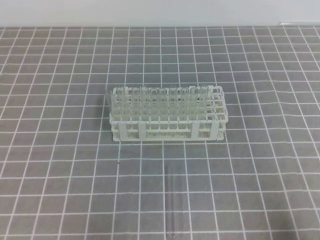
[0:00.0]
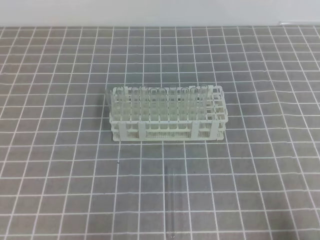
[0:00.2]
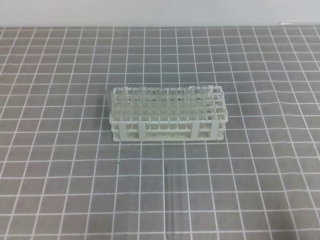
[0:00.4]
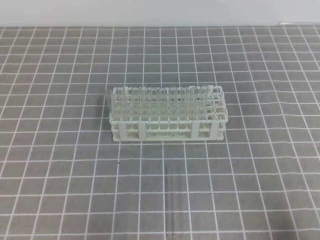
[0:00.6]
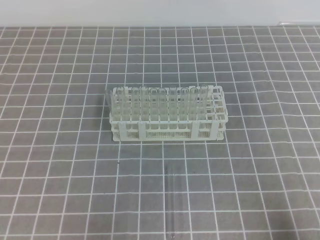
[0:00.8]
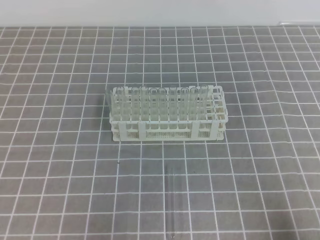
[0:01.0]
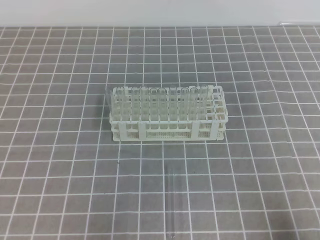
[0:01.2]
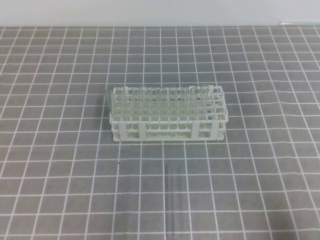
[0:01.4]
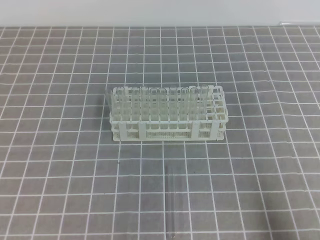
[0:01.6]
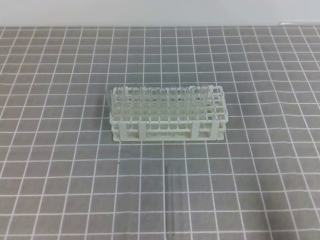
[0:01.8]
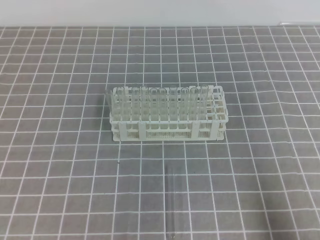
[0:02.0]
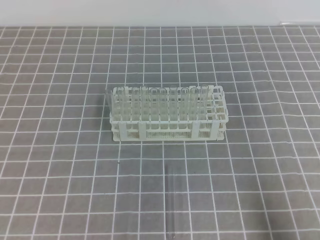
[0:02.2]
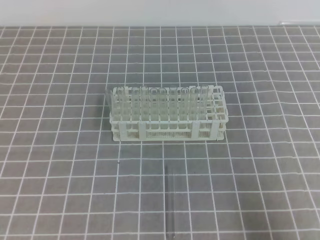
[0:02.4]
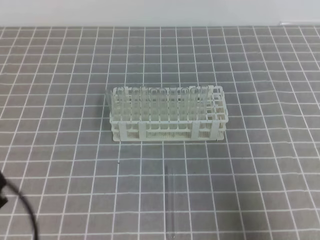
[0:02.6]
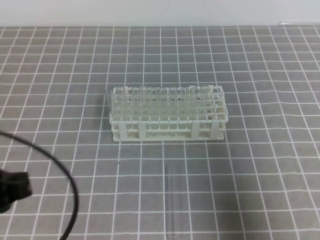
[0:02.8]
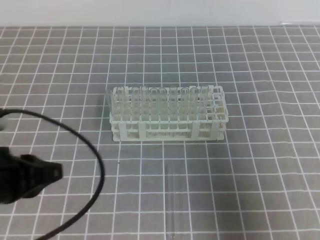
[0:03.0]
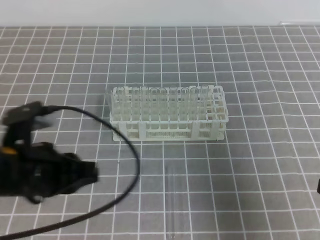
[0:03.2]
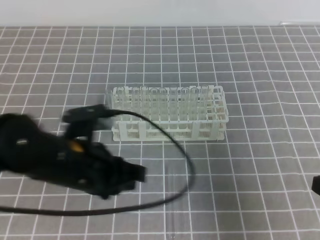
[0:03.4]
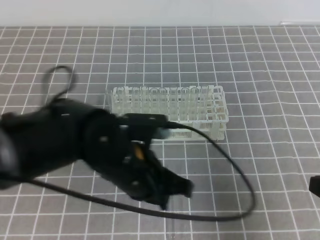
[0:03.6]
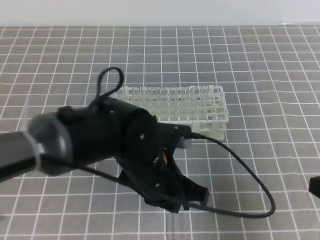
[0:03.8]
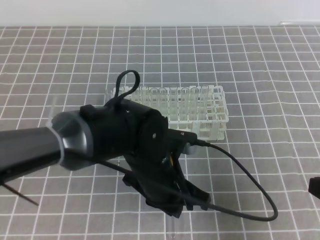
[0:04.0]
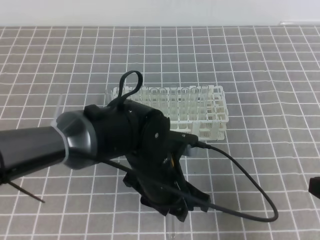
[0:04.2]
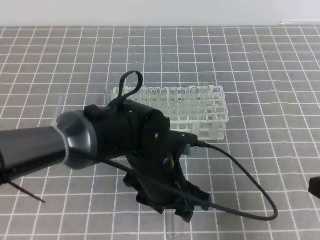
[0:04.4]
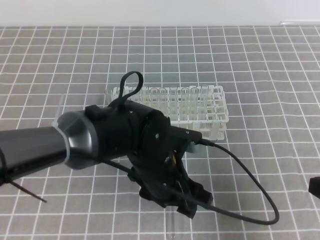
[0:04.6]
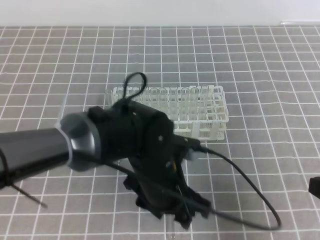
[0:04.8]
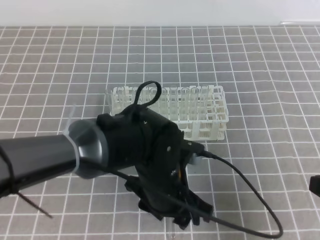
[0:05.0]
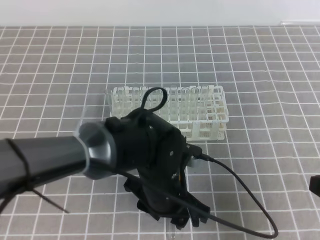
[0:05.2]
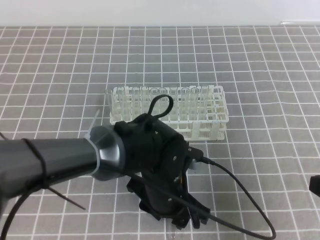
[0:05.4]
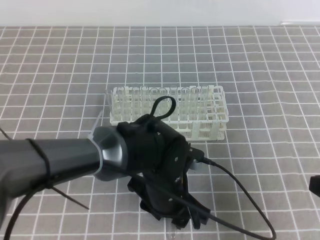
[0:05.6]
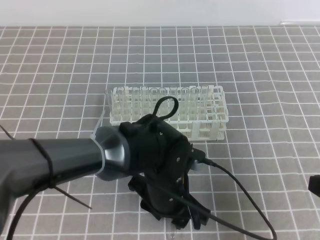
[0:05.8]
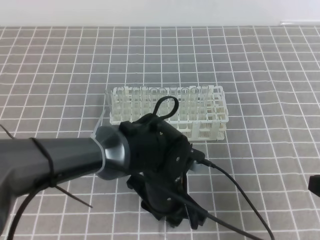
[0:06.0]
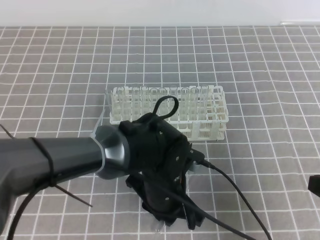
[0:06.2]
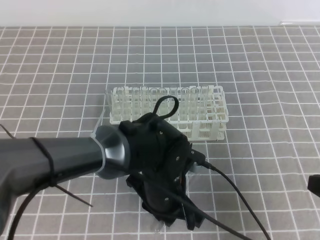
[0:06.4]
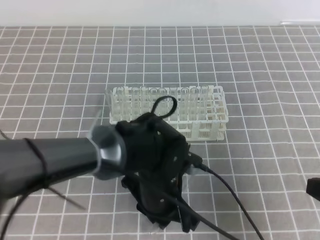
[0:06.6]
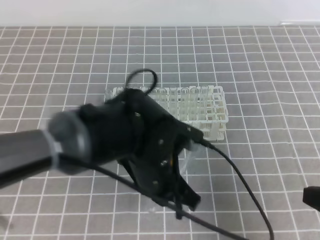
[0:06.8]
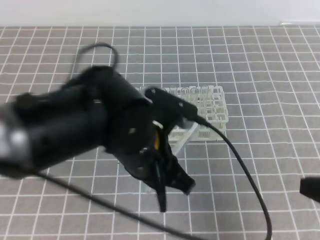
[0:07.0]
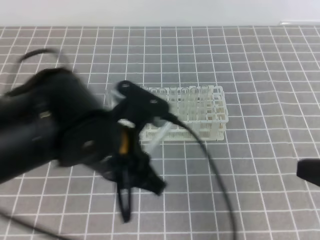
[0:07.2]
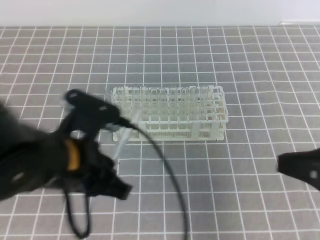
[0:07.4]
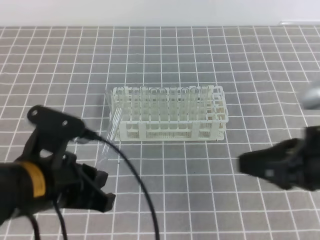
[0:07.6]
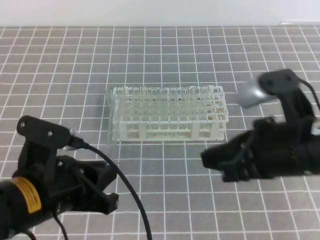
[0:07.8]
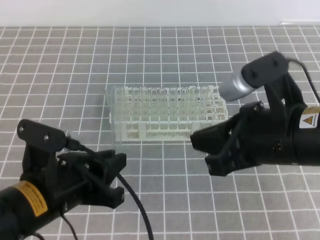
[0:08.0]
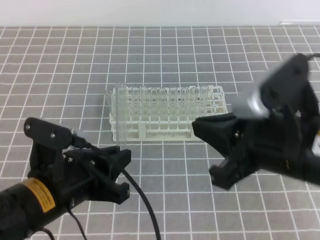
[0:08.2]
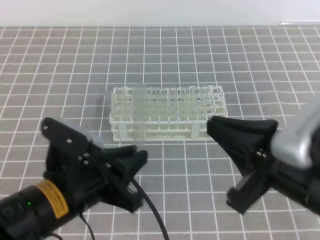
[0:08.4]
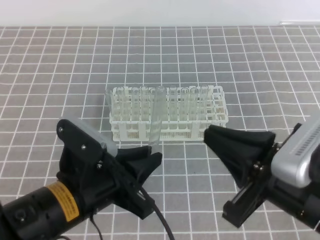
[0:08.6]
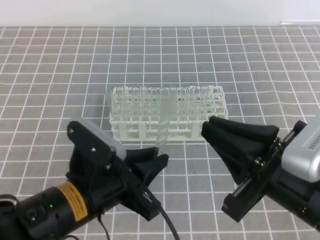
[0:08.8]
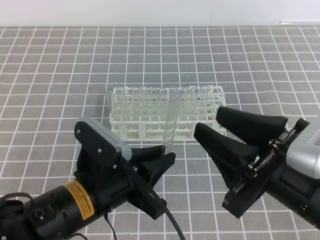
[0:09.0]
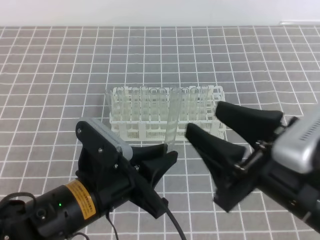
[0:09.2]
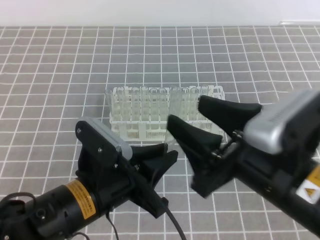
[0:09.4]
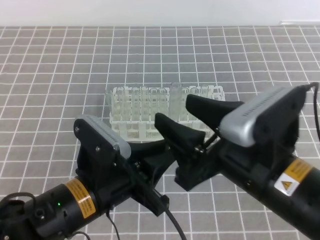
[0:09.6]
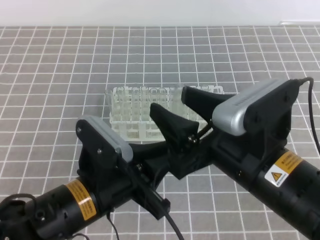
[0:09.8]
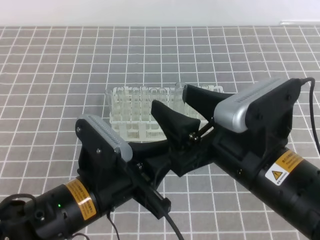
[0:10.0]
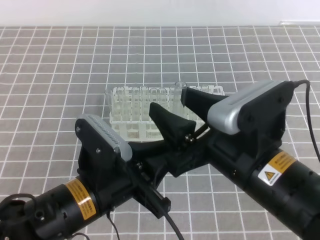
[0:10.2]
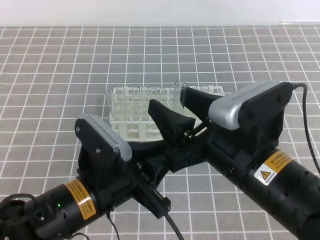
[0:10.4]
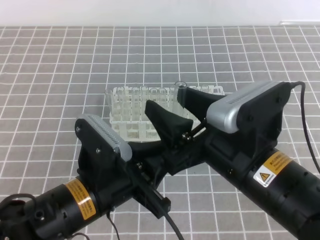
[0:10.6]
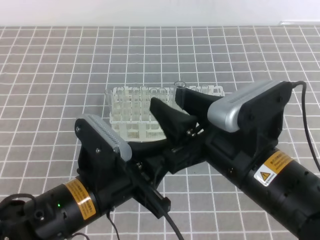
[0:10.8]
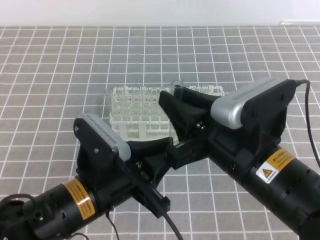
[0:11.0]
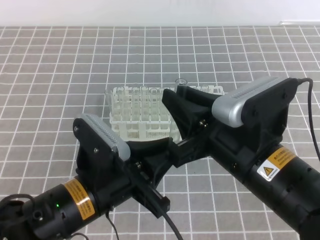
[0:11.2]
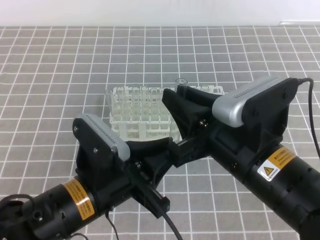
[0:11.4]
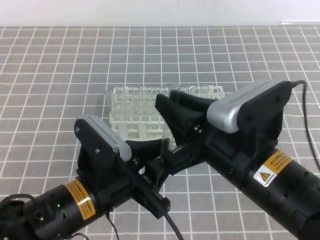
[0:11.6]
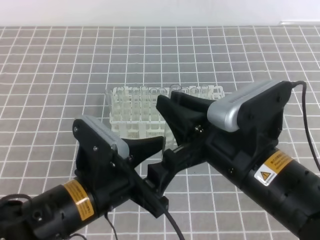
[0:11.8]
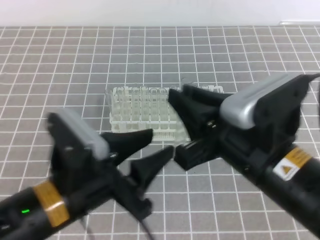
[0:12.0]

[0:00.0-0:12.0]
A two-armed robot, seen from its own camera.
0:01.6 to 0:03.0: The left gripper shifts about 15 cm forward, upward and to the right; the right gripper goes approximately 10 cm upward and forward.
0:03.0 to 0:04.4: The left gripper shifts approximately 20 cm to the right, and opens its fingers.
0:04.4 to 0:06.0: The left gripper closes up.
0:06.0 to 0:07.6: The right gripper heads to the left and upward, covering about 10 cm; the left gripper moves to the left and upward, about 20 cm, and closes its fingers.
0:07.6 to 0:09.0: The right gripper travels to the left by about 5 cm, and opens its fingers. The left gripper ends up roughly 5 cm from where it was.
0:09.0 to 0:10.4: The right gripper moves to the left, roughly 5 cm, and opens its fingers.
0:10.4 to 0:12.0: The right gripper closes up, while the left gripper opens its fingers.

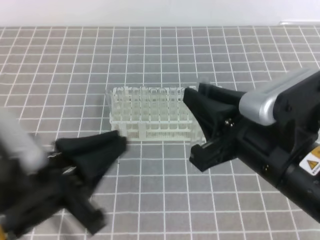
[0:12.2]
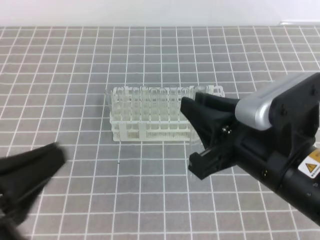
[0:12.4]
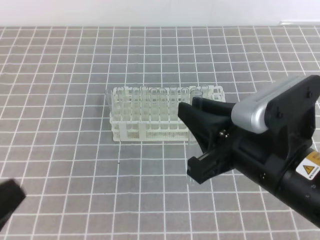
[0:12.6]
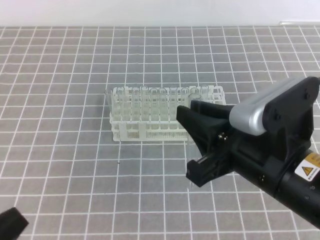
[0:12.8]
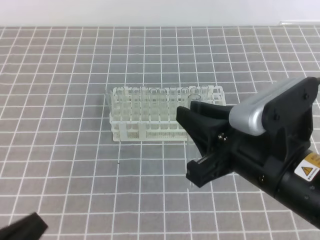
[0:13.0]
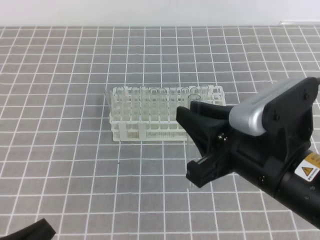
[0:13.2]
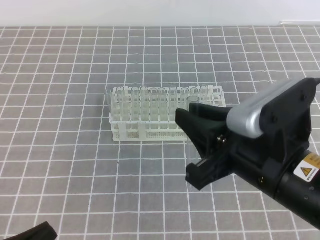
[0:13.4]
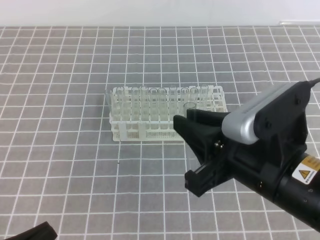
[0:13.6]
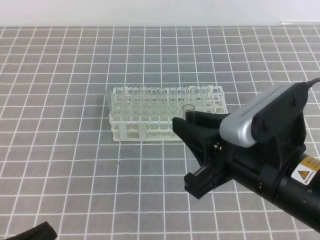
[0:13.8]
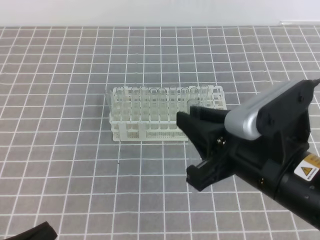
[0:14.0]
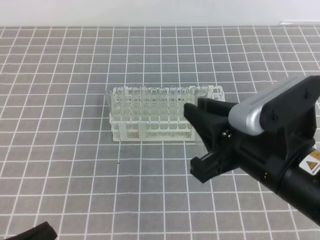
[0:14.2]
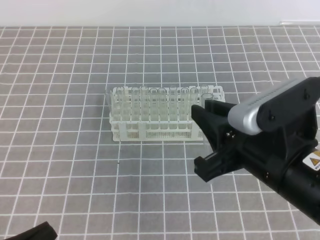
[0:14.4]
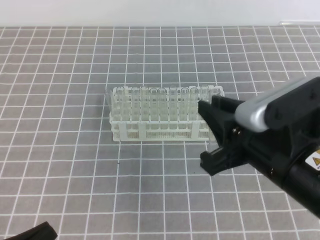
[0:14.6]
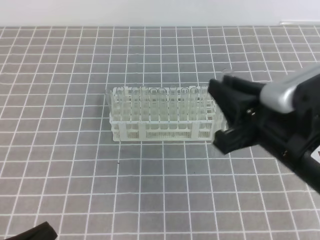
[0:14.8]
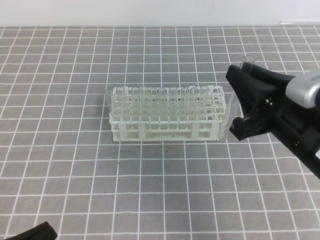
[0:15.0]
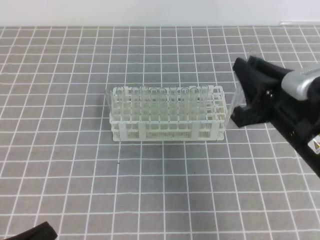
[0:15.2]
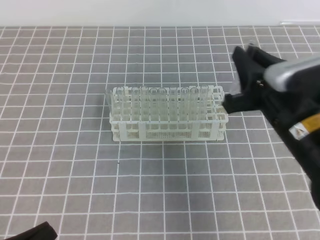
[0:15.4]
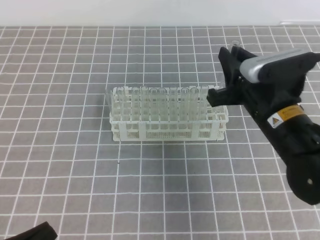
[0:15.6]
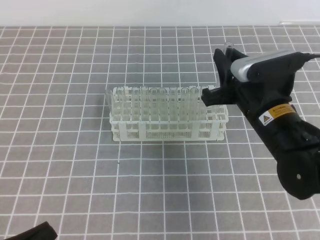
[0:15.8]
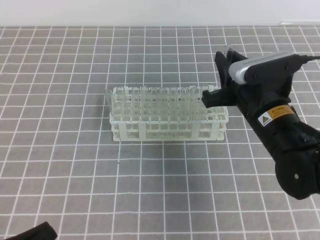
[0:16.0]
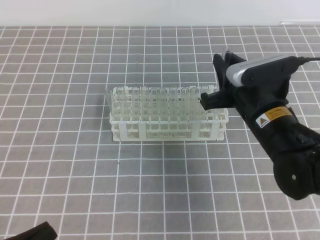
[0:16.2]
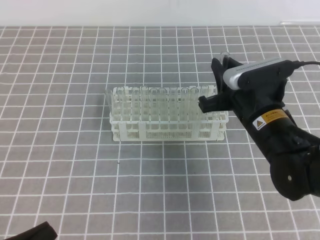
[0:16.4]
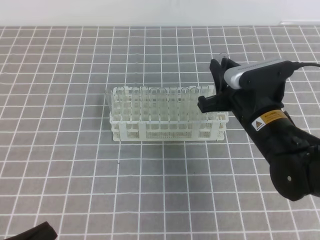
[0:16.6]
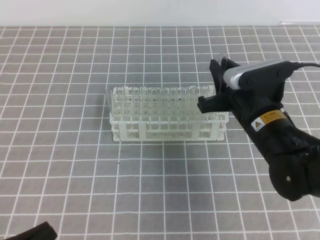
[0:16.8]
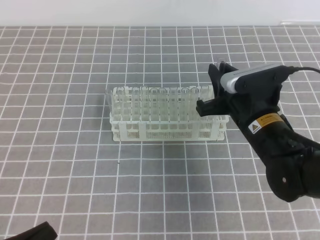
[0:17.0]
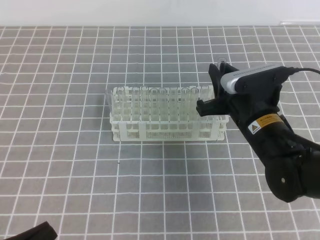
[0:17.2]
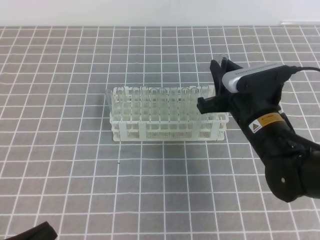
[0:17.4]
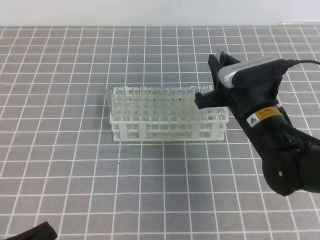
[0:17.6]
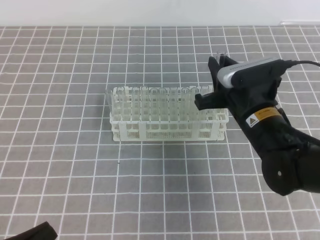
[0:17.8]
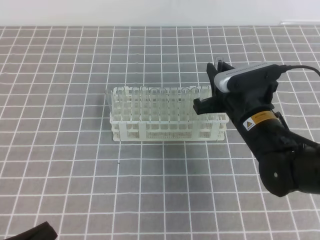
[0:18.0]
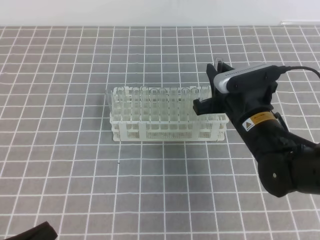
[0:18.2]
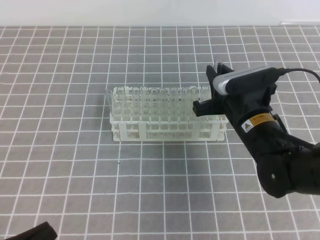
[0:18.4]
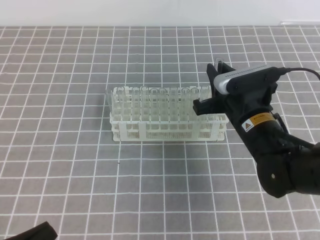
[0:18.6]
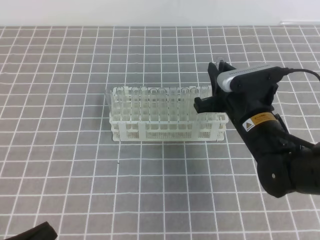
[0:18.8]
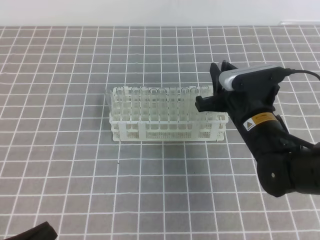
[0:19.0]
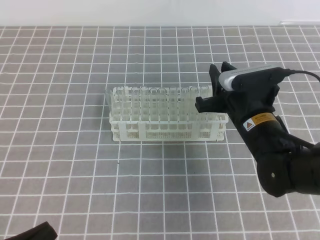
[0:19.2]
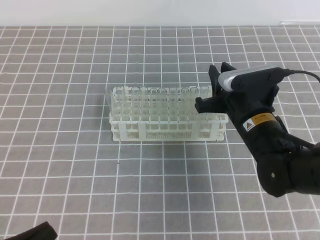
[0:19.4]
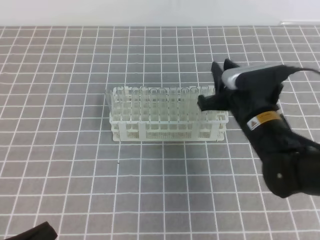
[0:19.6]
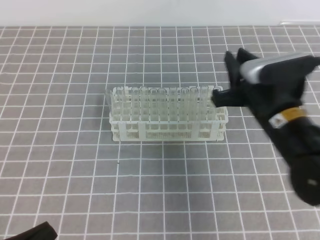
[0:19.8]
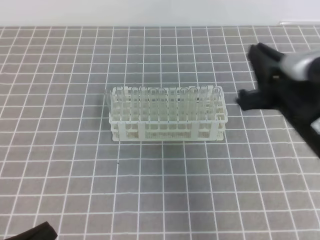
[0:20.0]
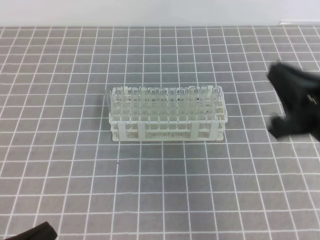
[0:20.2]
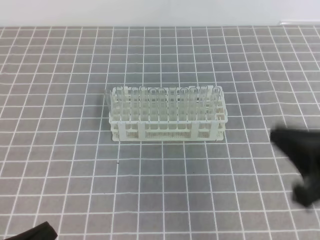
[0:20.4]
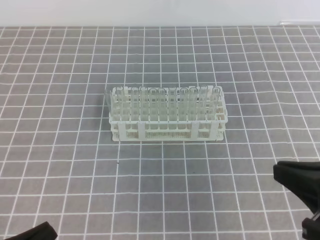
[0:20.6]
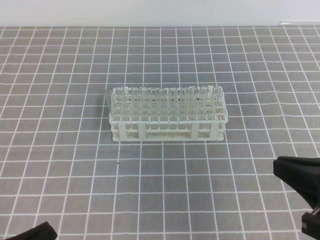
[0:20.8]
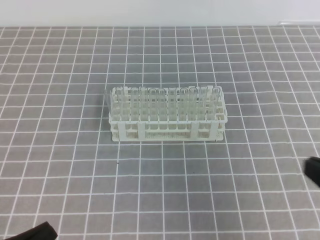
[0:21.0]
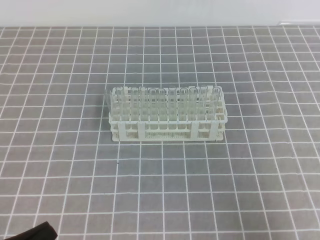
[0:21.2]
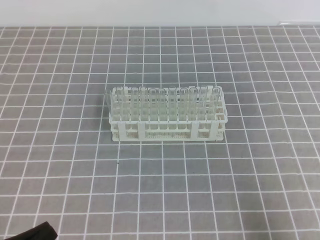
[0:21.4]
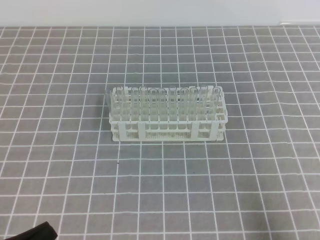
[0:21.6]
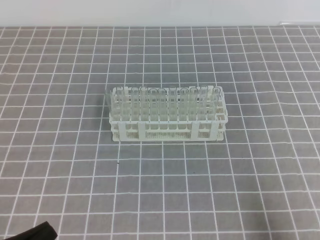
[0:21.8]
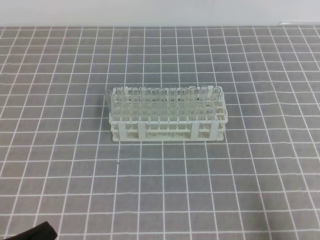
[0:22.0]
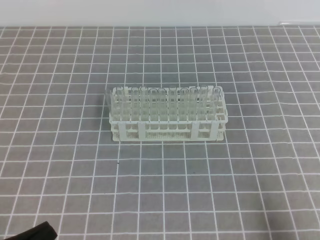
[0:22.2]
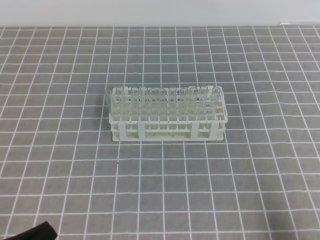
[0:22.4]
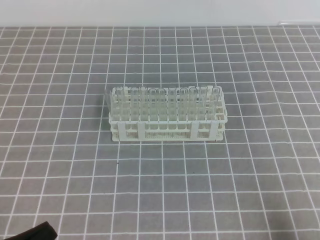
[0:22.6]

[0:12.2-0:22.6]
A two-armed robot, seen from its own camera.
0:12.2 to 0:13.6: The left gripper shifts about 15 cm downward, to the left and backward, and closes.
0:13.6 to 0:15.2: The right gripper is displaced forward and to the right by some 10 cm.
0:15.2 to 0:16.6: The right gripper moves forward and downward, approximately 10 cm.
0:16.6 to 0:19.6: The grippers stay close to where they were, moving slightly.
0:19.6 to 0:21.2: The right gripper is displaced backward and to the right by approximately 25 cm, and closes.
0:21.2 to 0:22.6: The right gripper goes about 10 cm downward.
